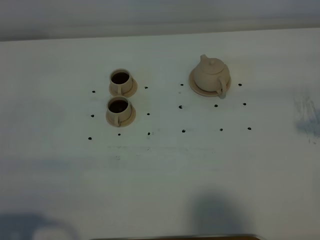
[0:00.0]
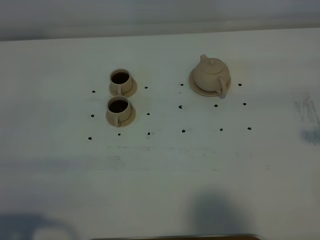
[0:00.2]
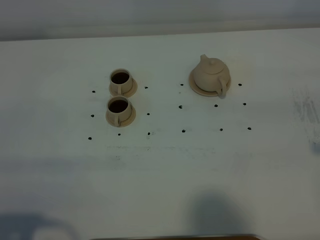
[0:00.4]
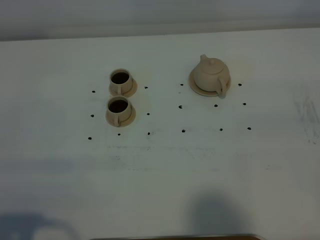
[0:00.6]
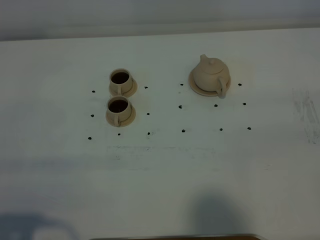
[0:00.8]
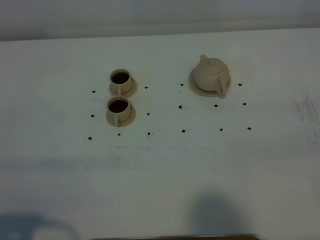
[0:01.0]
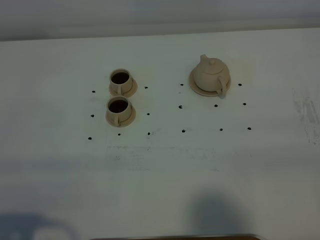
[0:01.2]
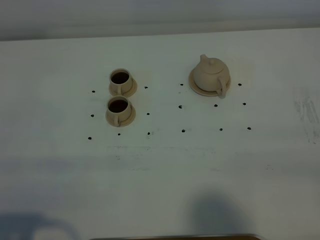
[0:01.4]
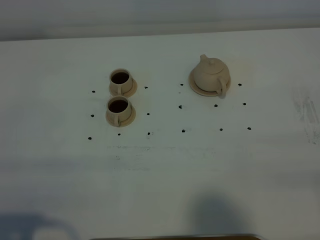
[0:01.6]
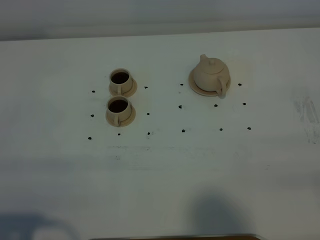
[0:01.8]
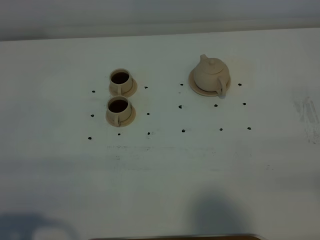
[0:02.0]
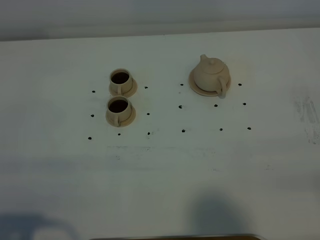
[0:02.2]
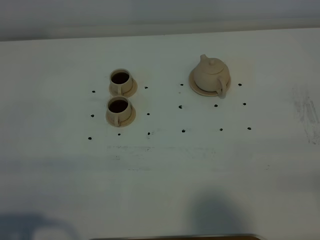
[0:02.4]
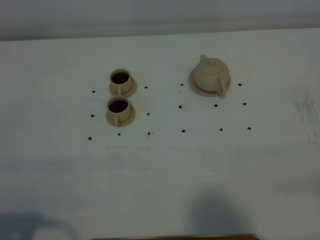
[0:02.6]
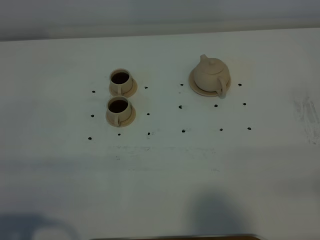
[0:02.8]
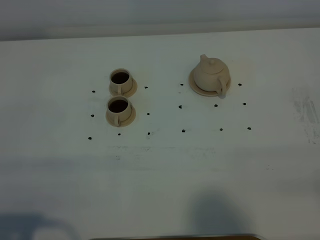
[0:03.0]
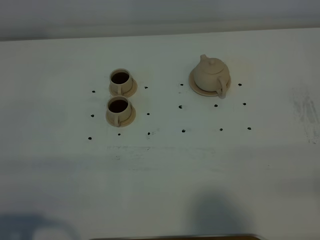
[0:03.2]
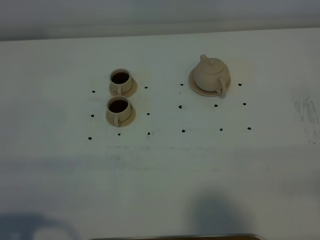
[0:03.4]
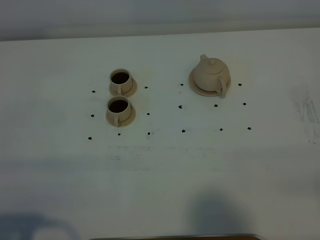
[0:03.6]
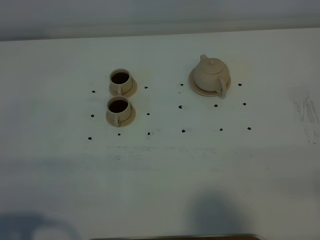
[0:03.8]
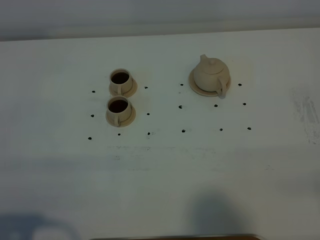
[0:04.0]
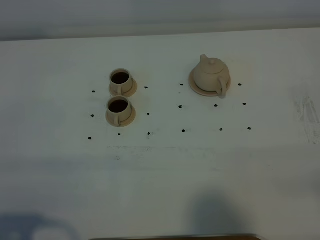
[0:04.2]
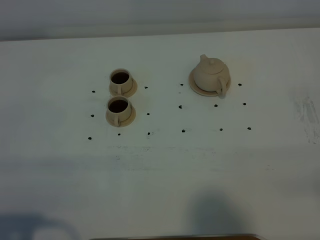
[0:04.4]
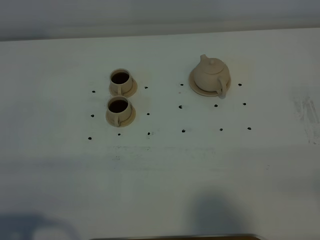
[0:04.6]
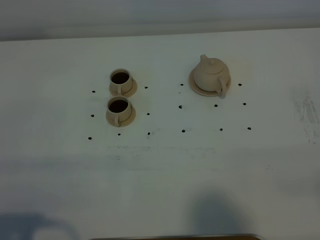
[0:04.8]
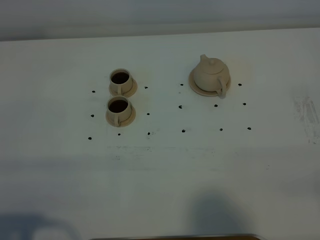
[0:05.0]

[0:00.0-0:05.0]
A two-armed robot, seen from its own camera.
Task of the whole recording: grasp the brown teapot and pour the tea into the two brown teacups one by one, put the brown teapot back in its original place.
0:03.4 to 0:05.0: Both grippers stay about where they are.
